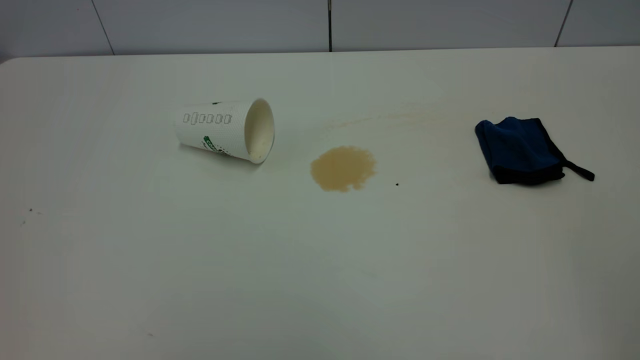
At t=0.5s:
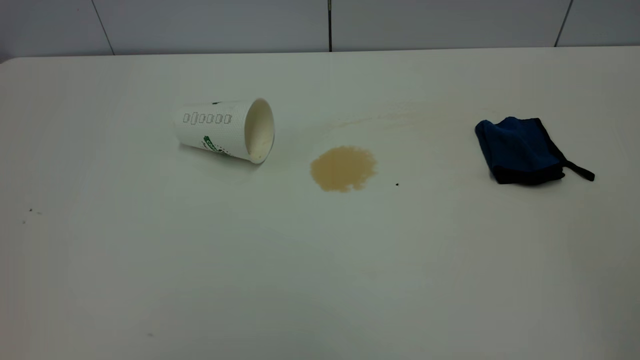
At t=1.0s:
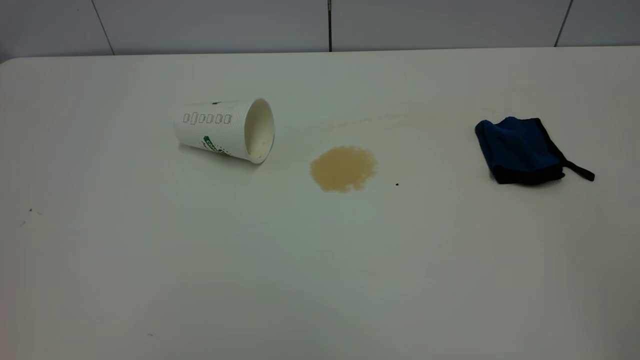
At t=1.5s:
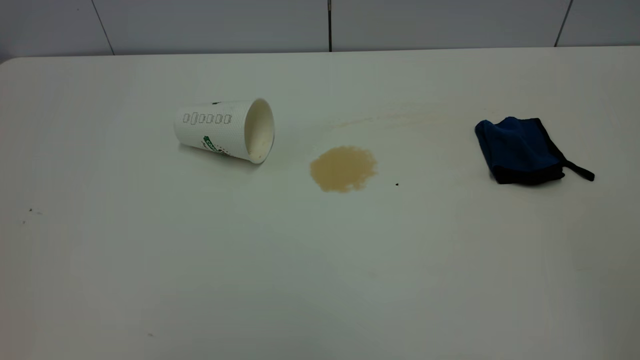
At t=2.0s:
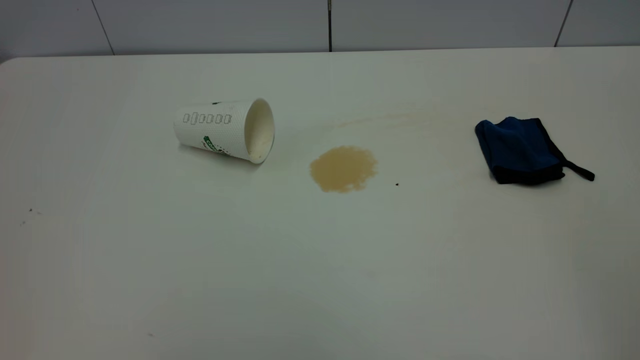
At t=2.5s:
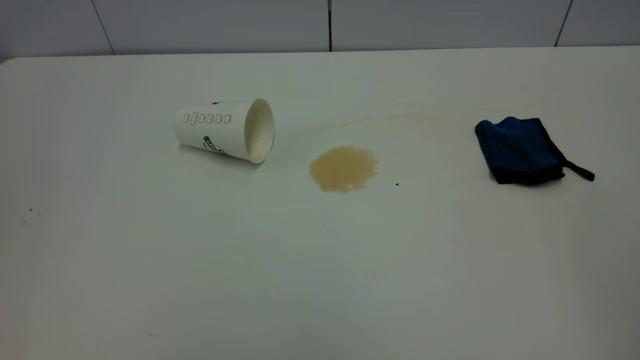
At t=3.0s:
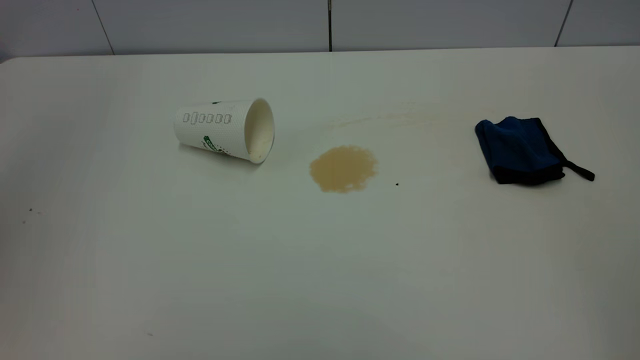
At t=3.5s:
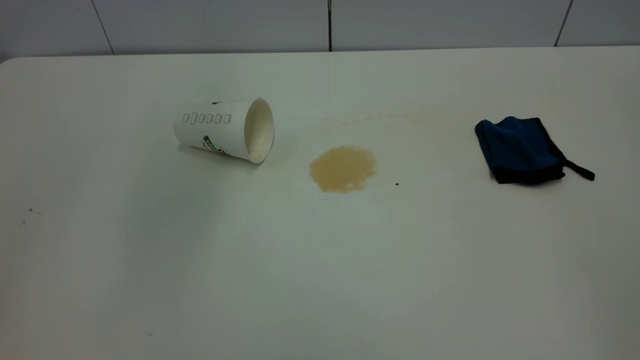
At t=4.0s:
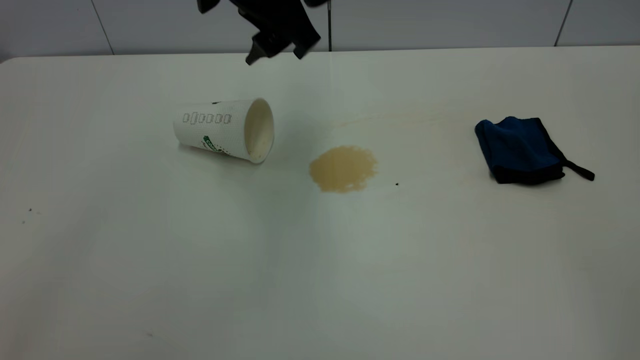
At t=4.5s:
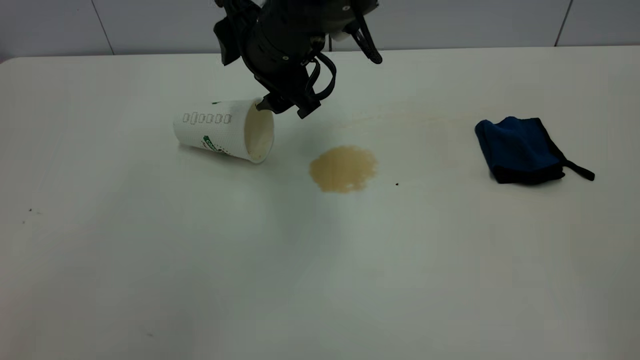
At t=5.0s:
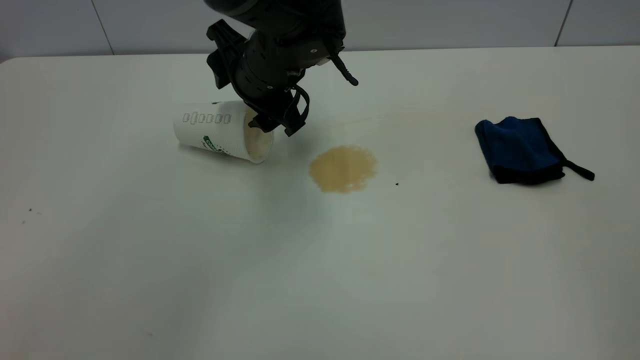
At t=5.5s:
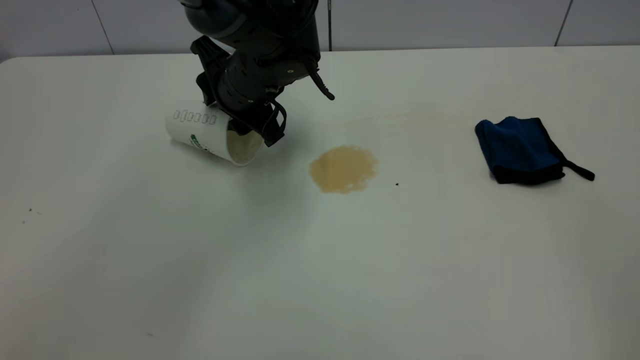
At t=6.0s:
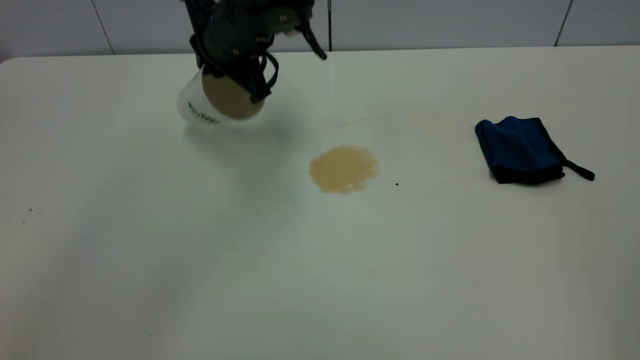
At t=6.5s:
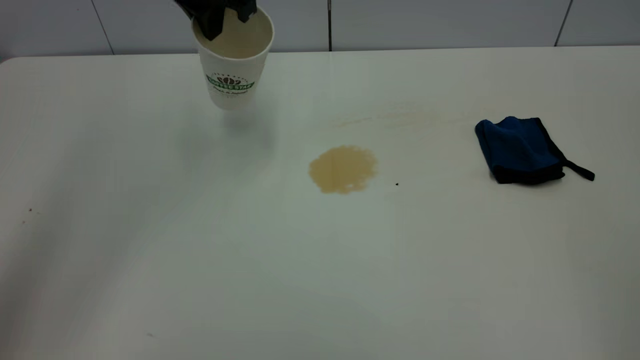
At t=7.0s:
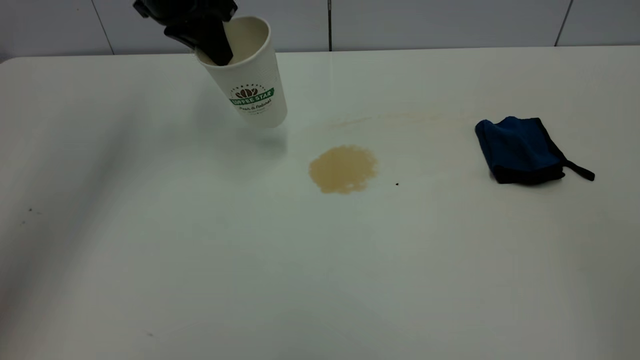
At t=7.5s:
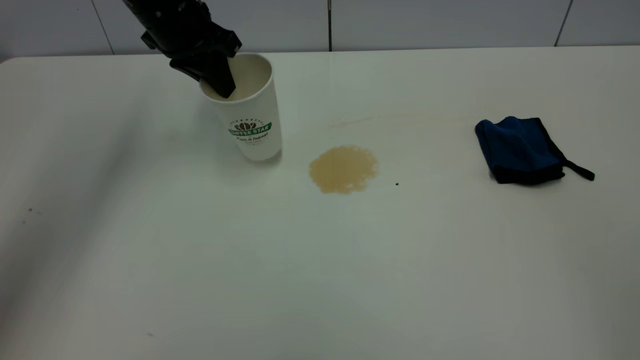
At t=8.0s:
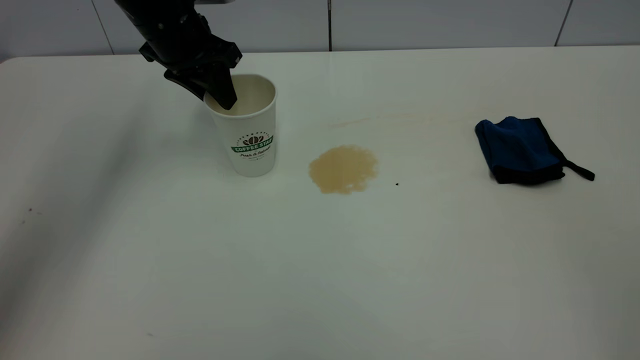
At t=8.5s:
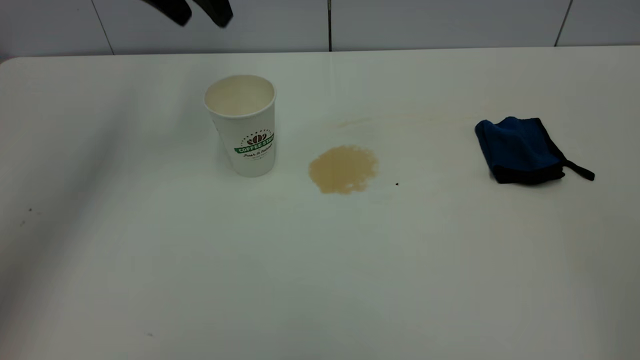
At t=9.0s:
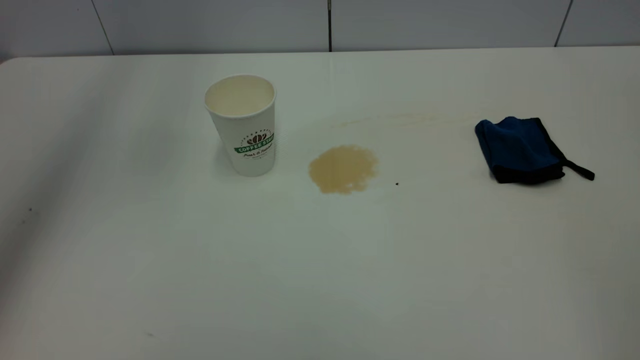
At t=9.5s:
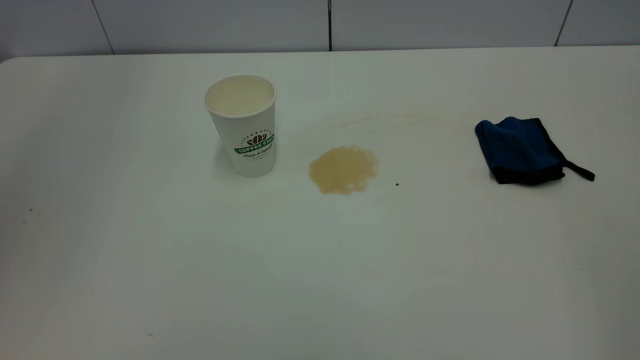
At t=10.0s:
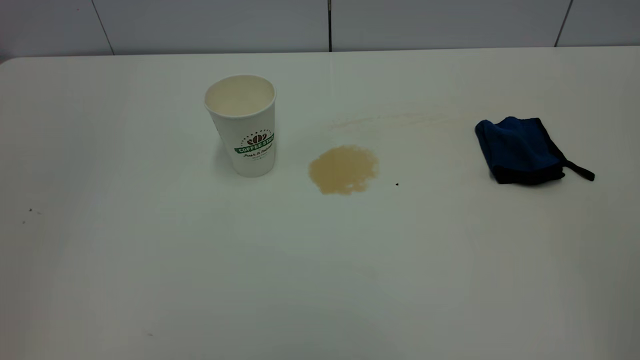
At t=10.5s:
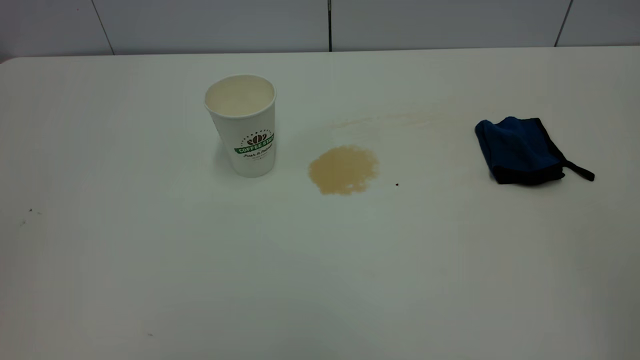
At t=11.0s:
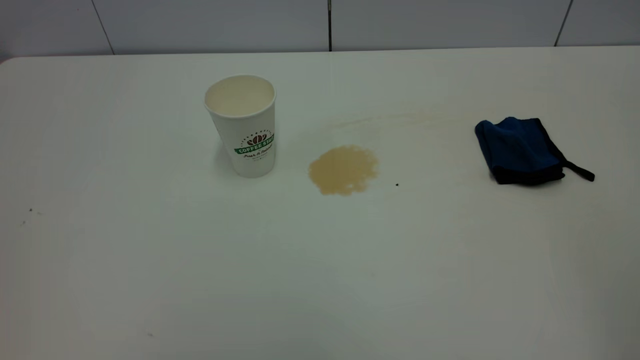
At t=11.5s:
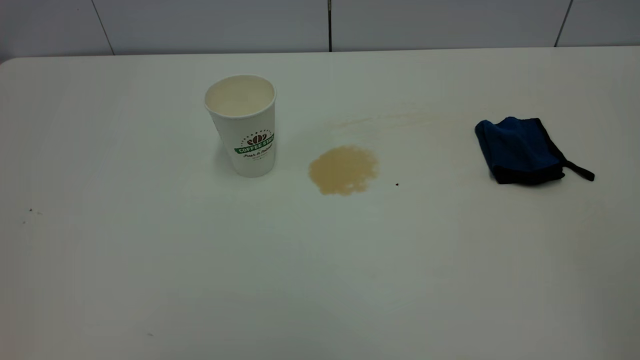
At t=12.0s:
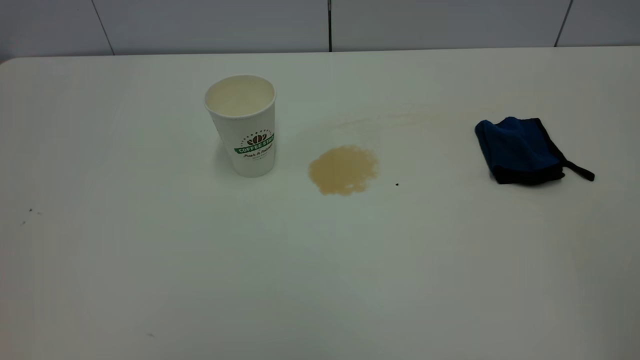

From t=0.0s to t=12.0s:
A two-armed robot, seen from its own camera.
Task of the whole recording: the left gripper pick up the fallen cup and place it upright, the right gripper grasp the blue rag and wipe the tea stain on the table, the right gripper put the blue rag back in its original position.
Step, from t=0.0s to t=8.0s: Stand the paper cup upright.
From t=0.0s to t=2.0s: Neither gripper changes place.
From t=2.0s to t=4.0s: The left gripper shifts some 50 cm forward and to the right, and opens.
From t=4.0s to t=6.0s: The left gripper heads downward and forward, covering roughly 10 cm, and closes its fingers.
From t=6.0s to t=8.0s: The left gripper heads to the left, covering about 10 cm, and opens.
From t=8.0s to t=10.0s: The left gripper goes some 40 cm backward and upward, and opens and closes again.

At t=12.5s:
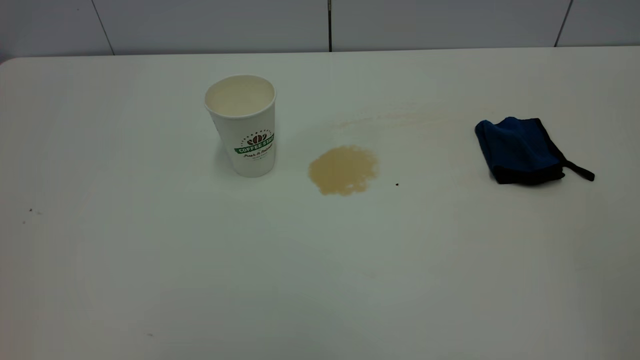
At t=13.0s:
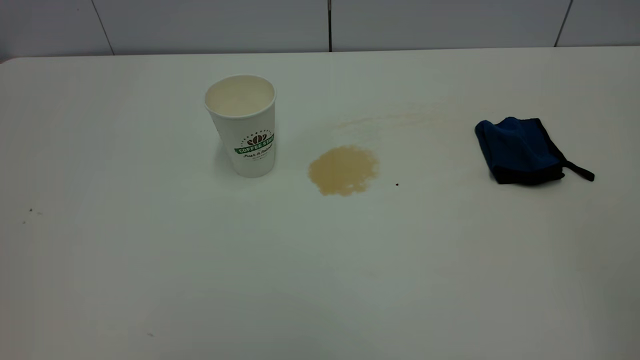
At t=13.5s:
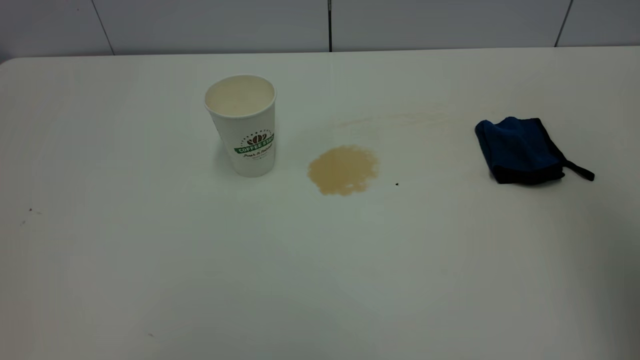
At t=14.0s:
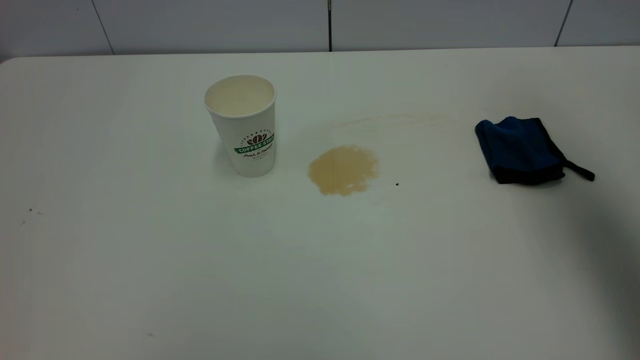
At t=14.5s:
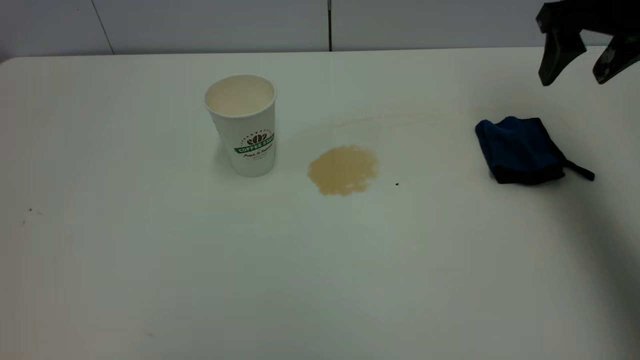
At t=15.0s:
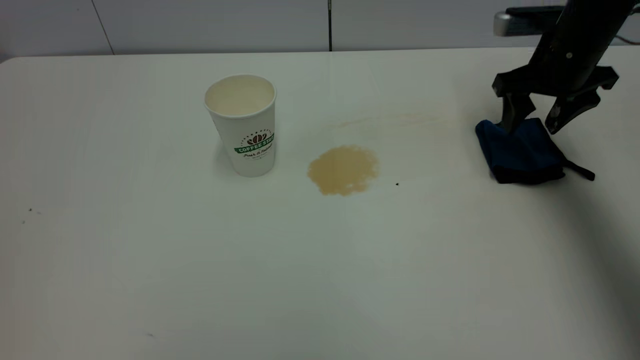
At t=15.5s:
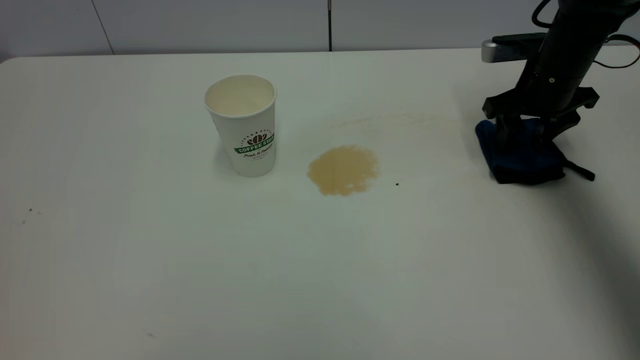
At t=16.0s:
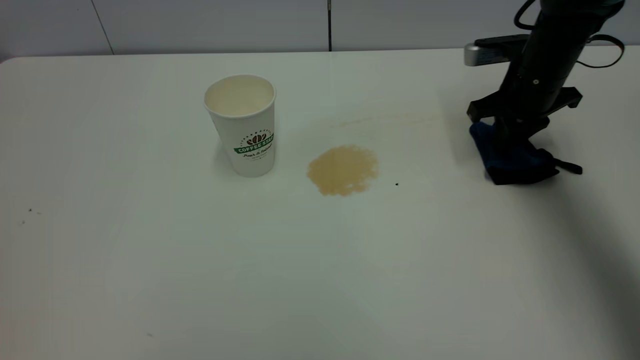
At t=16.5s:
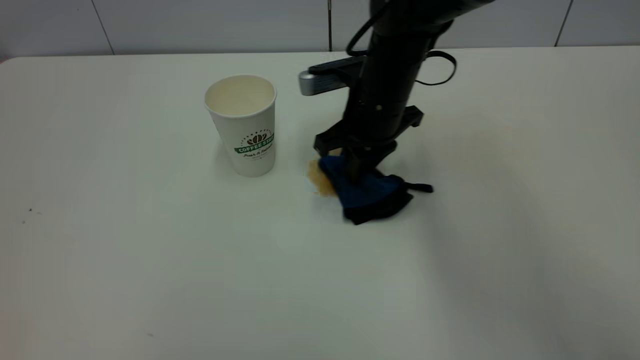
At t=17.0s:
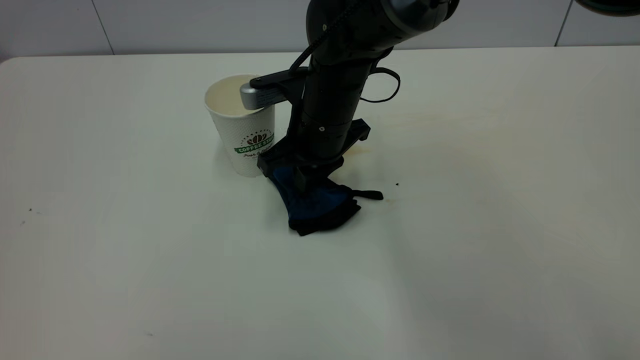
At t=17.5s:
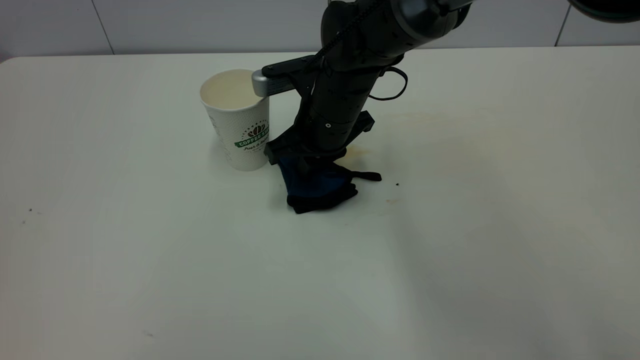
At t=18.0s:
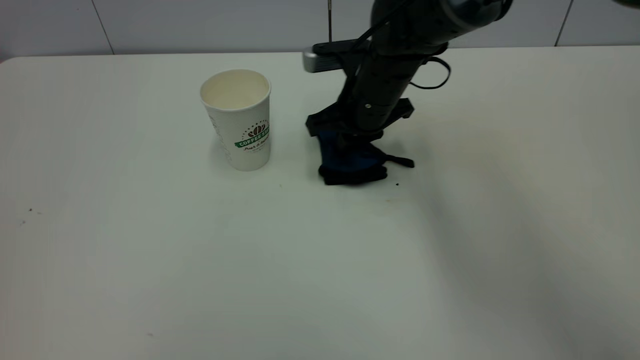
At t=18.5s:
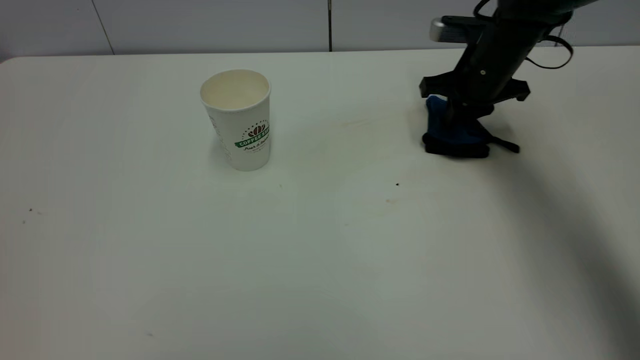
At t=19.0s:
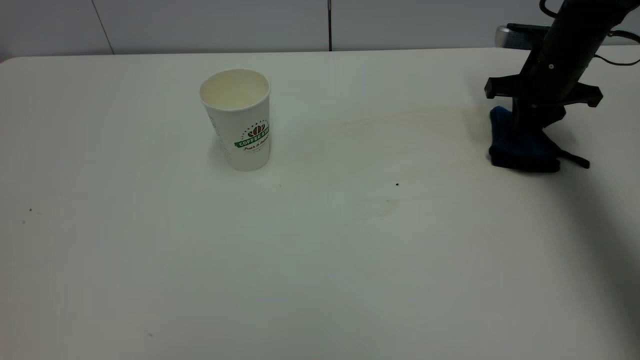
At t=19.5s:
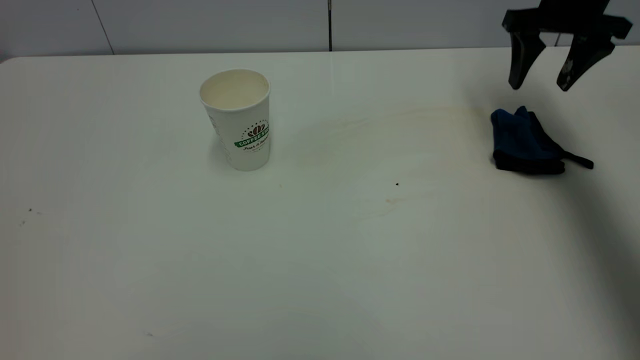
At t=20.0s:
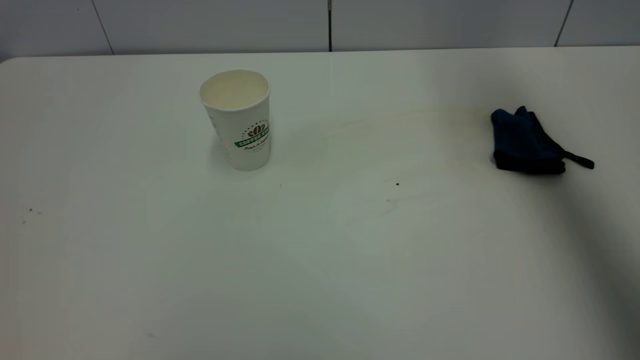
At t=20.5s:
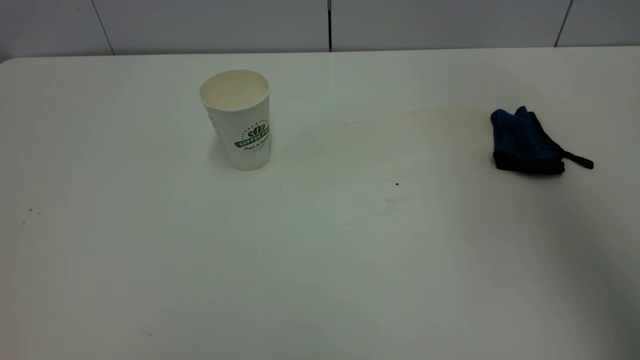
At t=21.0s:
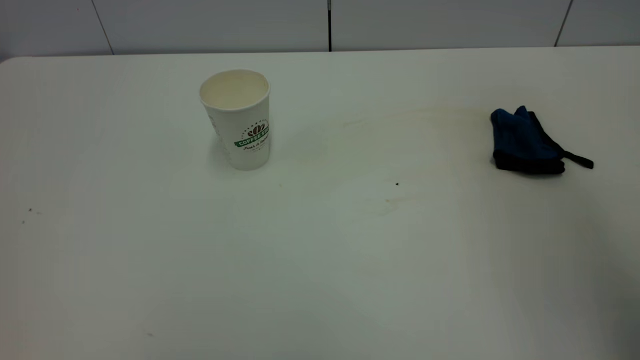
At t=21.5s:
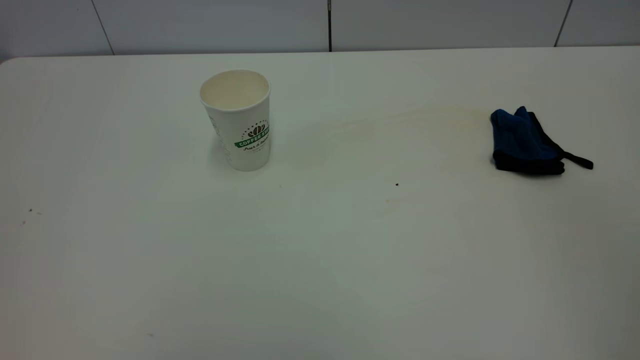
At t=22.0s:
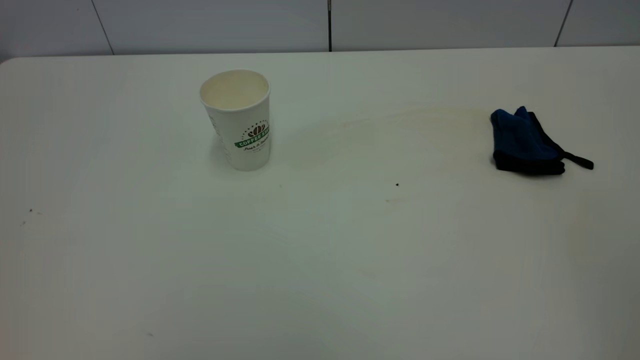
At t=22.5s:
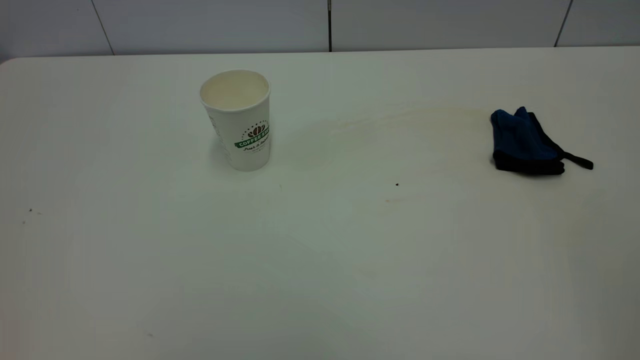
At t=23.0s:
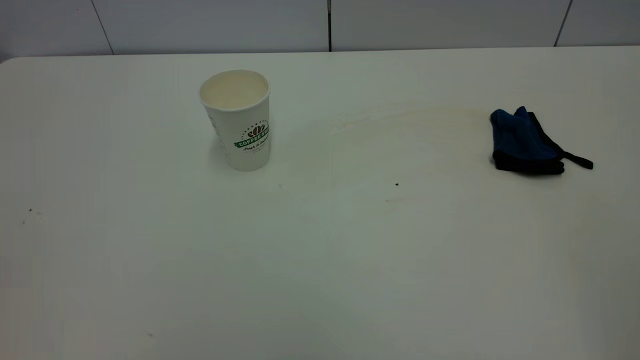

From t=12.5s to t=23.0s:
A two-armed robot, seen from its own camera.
Task of the whole recording: the left gripper pick up the fallen cup and place it upright, the right gripper grasp the blue rag and wipe the tea stain on the table, the right gripper put the blue rag back in its original position.
Step, from t=12.5s to t=19.5s: Wipe the stains off the table with a rag.
From t=12.5s to t=14.5s: The right gripper travels forward by roughly 40 cm.
From t=14.5s to t=16.5s: The right gripper is displaced to the left and downward by about 25 cm, and closes.
From t=16.5s to t=19.0s: The right gripper goes some 25 cm to the right.
From t=19.0s to t=21.0s: The right gripper moves upward and backward, roughly 40 cm, and opens its fingers.
